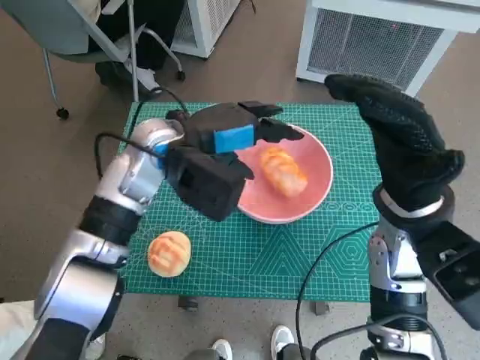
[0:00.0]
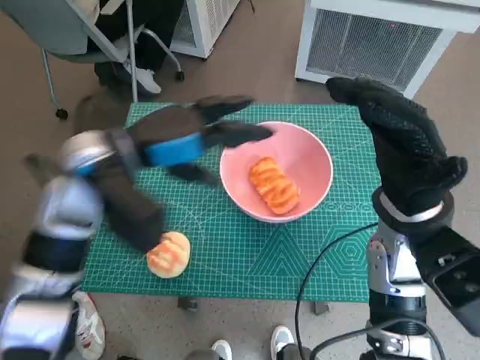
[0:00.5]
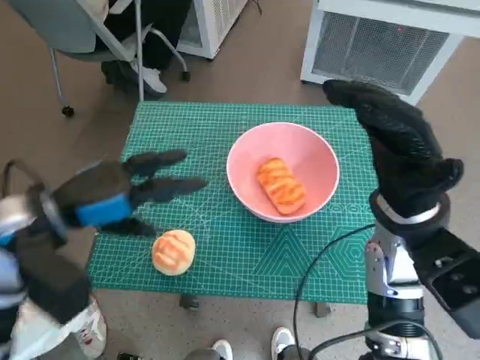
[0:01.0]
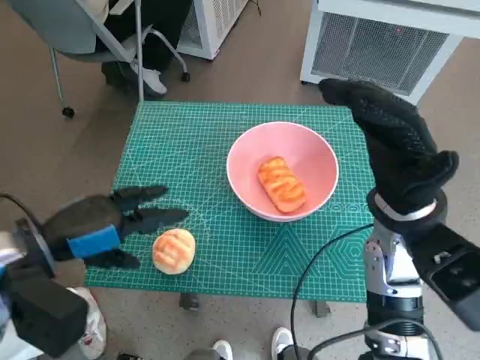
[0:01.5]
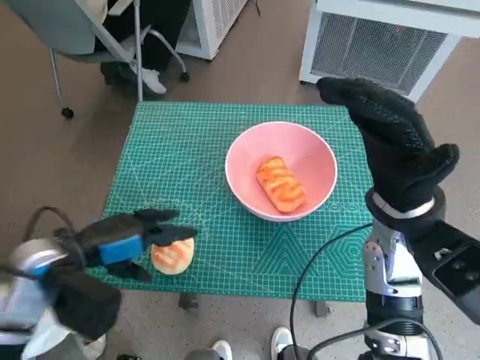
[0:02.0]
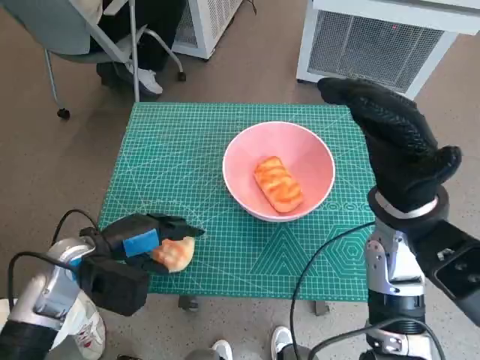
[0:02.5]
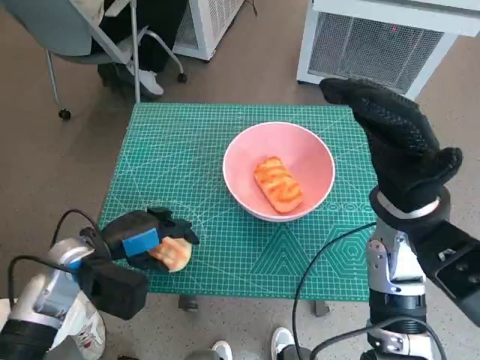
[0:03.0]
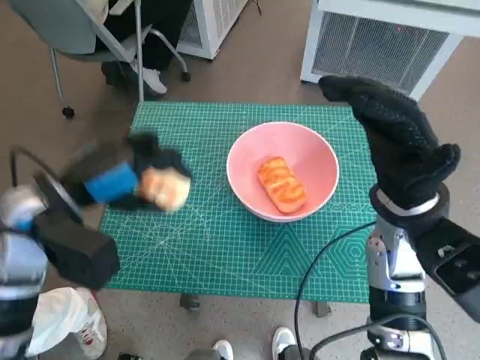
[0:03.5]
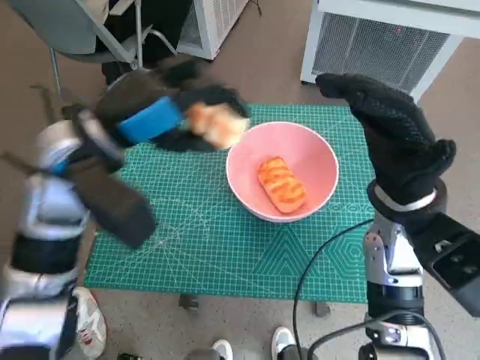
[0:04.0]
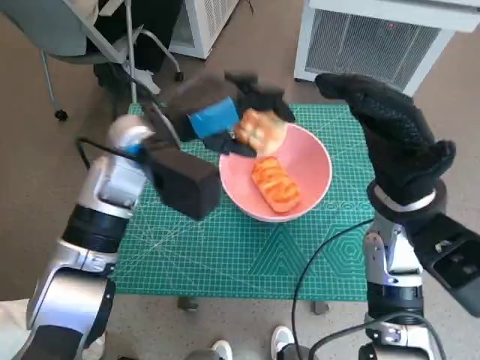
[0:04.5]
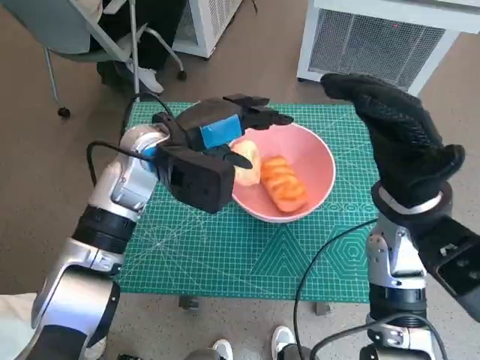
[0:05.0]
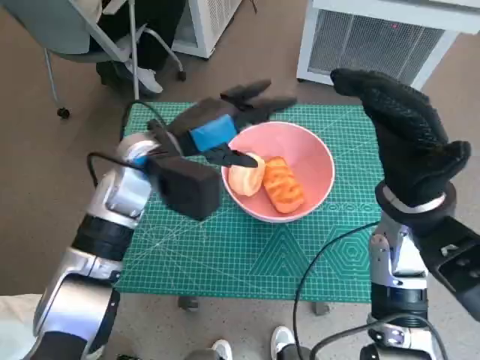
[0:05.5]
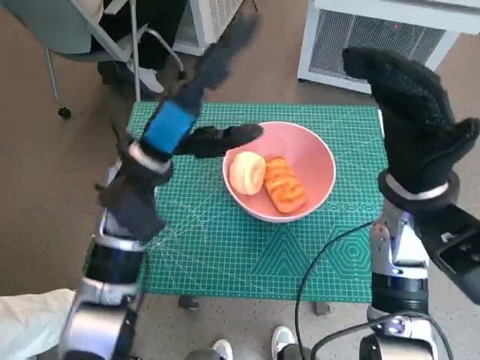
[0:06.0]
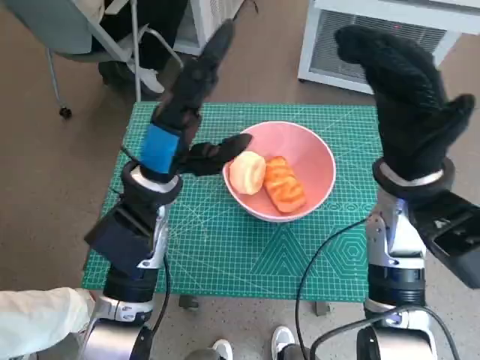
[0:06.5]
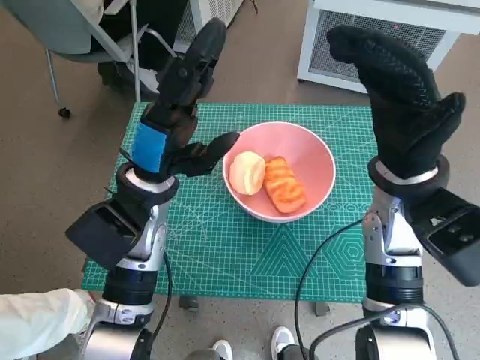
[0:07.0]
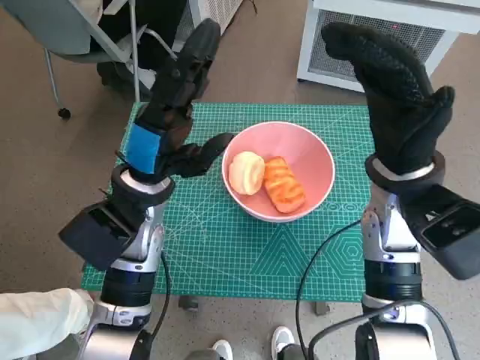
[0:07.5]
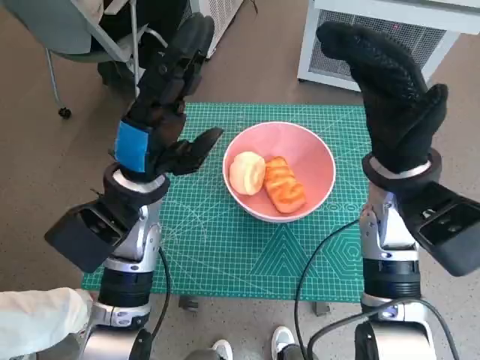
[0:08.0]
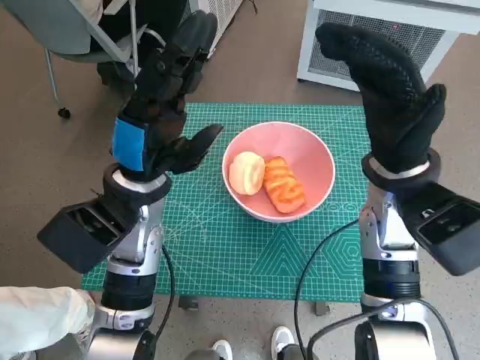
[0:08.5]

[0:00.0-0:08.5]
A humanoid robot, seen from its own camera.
Task of the whole recording: Push the bowl to the center of the table and put the bread into the bowl.
Step, 0:00.5 to 0:02.5: Grasp the round bread with left hand.
Step, 0:03.0 to 0:05.0: Place the round bread in pink bowl with left hand.
0:00.0 to 0:02.0: The left hand is displaced to the left, backward and downward by about 20 cm.
0:02.0 to 0:04.0: The left hand goes some 15 cm upward, forward and to the right.
0:04.0 to 0:06.5: The left hand is displaced downward and to the right by some 10 cm.

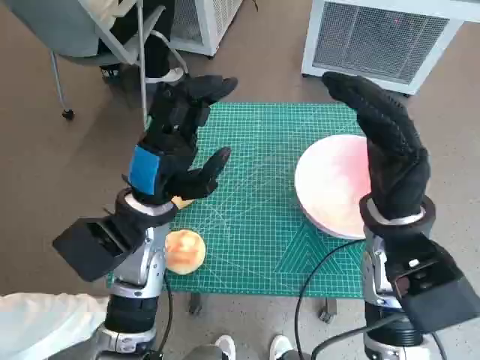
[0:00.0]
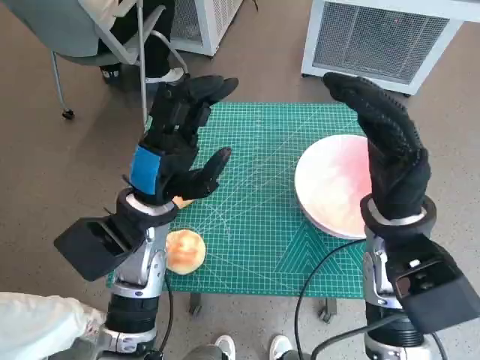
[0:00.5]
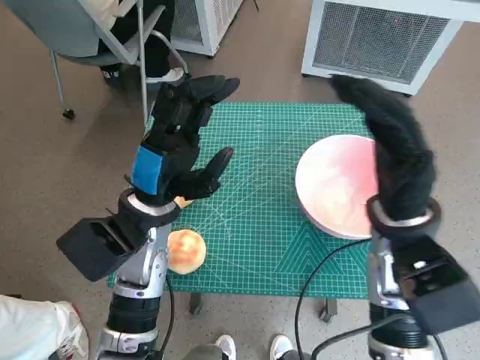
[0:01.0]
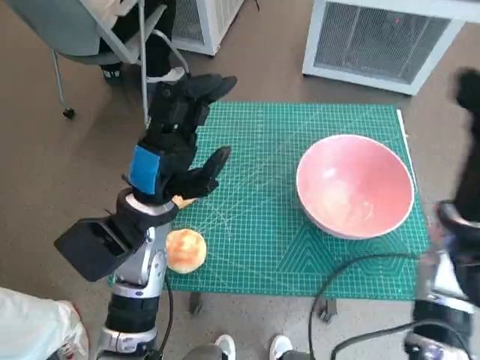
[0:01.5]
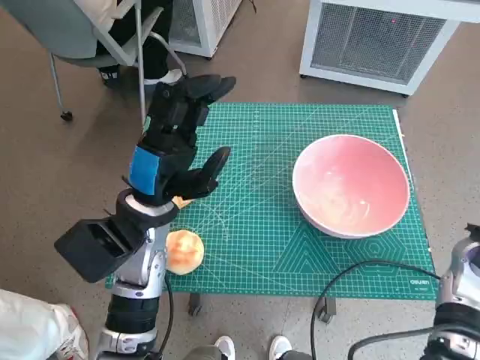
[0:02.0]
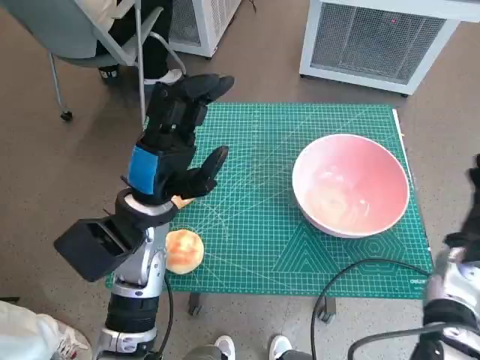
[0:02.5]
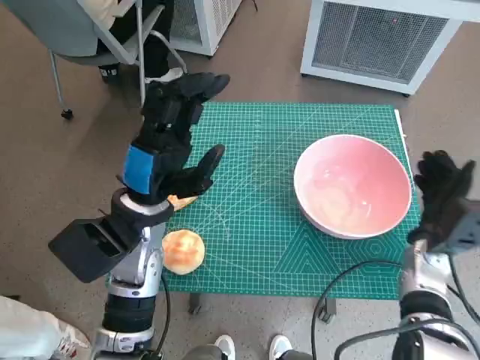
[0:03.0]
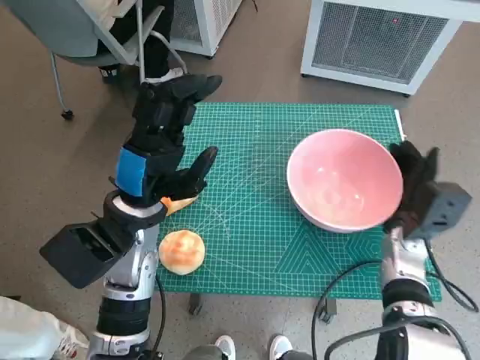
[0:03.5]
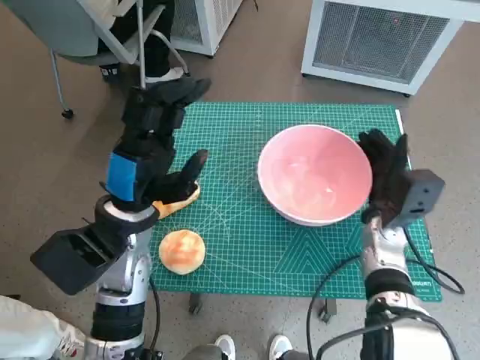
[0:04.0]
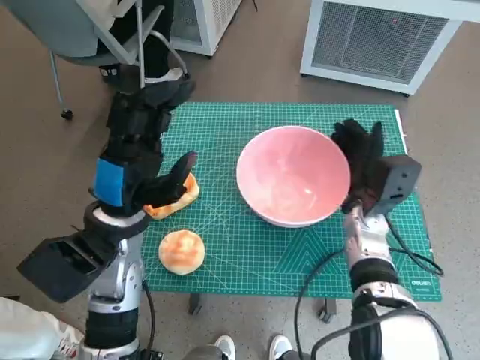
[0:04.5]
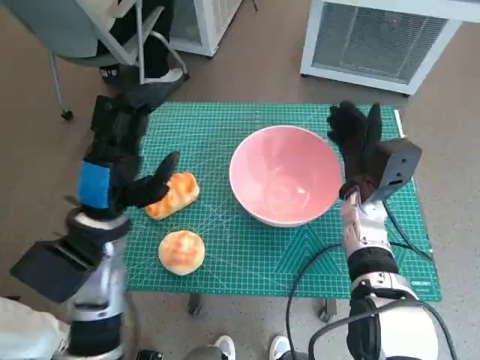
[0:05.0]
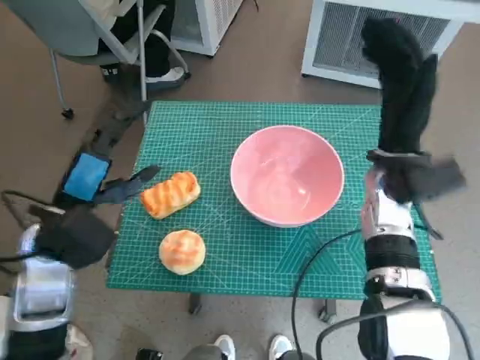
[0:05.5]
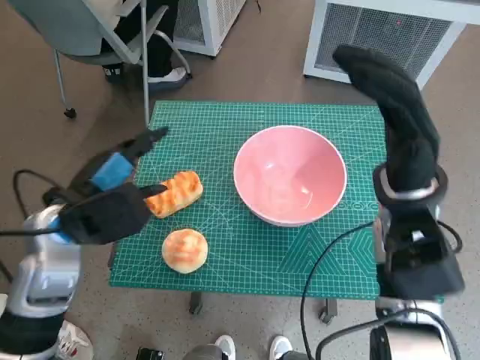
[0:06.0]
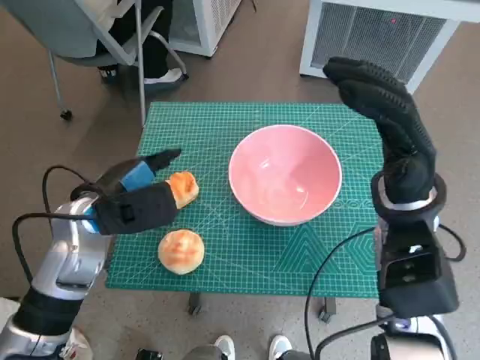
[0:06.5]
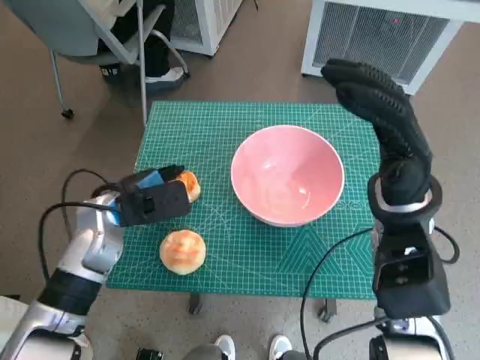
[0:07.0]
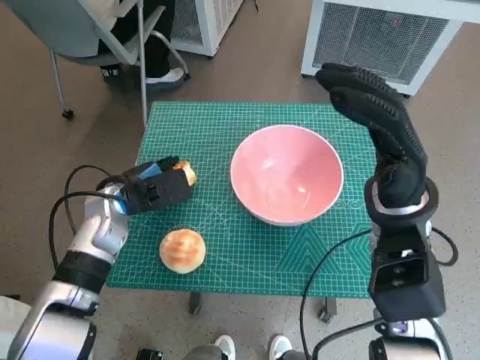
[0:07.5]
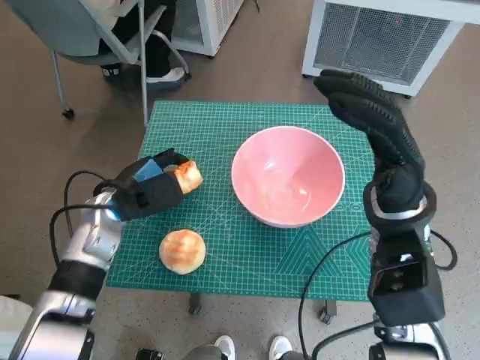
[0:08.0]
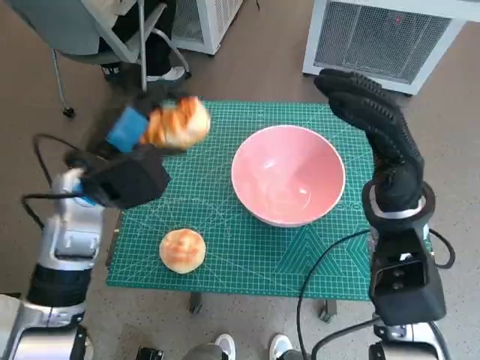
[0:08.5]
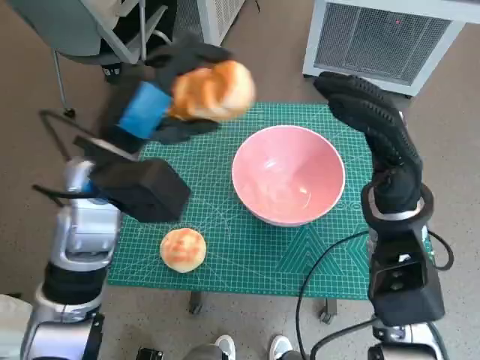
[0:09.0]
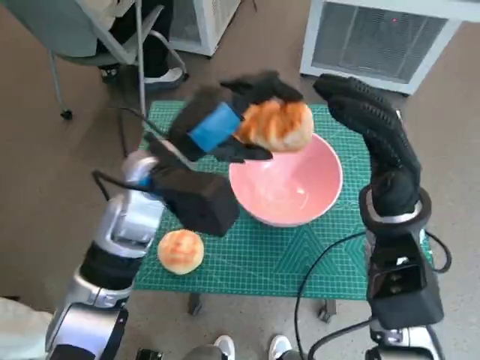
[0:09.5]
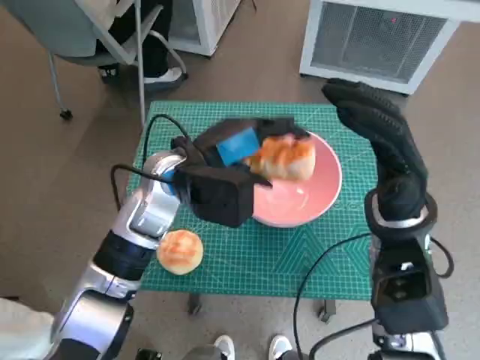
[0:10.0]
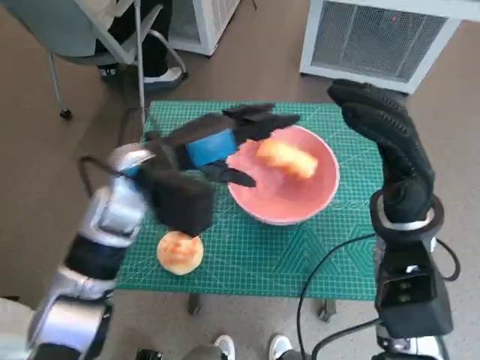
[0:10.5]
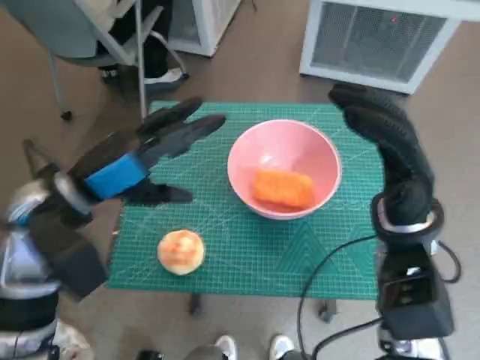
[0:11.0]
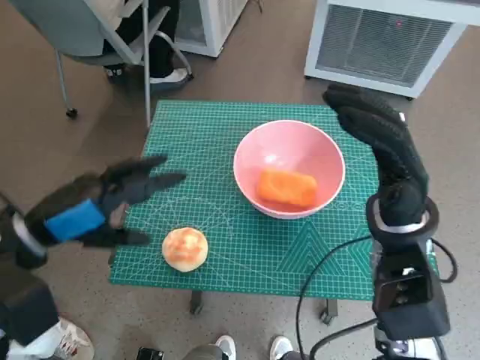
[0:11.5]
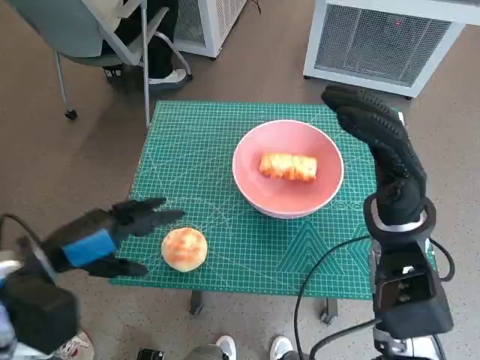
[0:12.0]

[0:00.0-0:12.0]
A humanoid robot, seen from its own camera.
Task of the whole recording: Push the bowl to the center of the table and put the bread into the bowl.
Step, 0:00.0 to 0:05.0: Move the pink bowl to the center of table with right hand.
Step, 0:05.5 to 0:07.5: Grasp the long bread with left hand.
Step, 0:08.0 to 0:10.5: Place the long bread in pink bowl with left hand.
0:02.0 to 0:04.0: The right hand goes approximately 10 cm to the left and downward.
0:04.0 to 0:06.0: The right hand moves upward, approximately 15 cm, while the left hand is displaced to the left by some 5 cm.
0:06.0 to 0:08.0: The left hand goes about 10 cm downward and forward.
0:08.0 to 0:10.0: The left hand shifts roughly 15 cm to the right and upward.
0:10.0 to 0:12.0: The left hand goes approximately 20 cm to the left and backward.

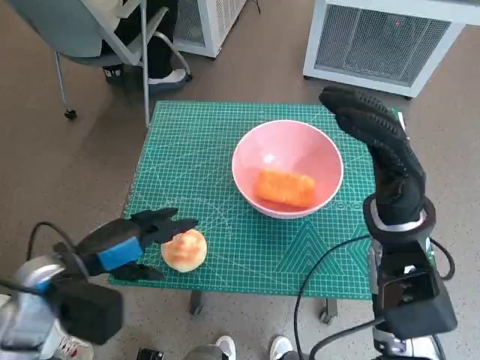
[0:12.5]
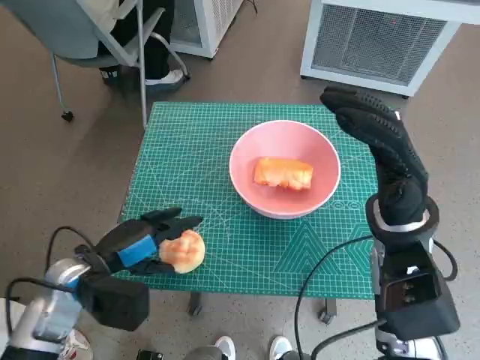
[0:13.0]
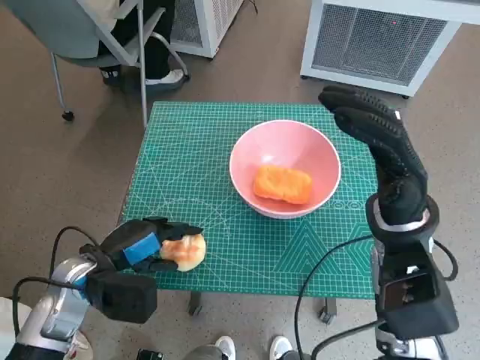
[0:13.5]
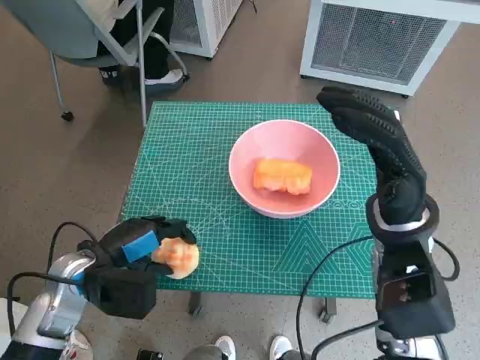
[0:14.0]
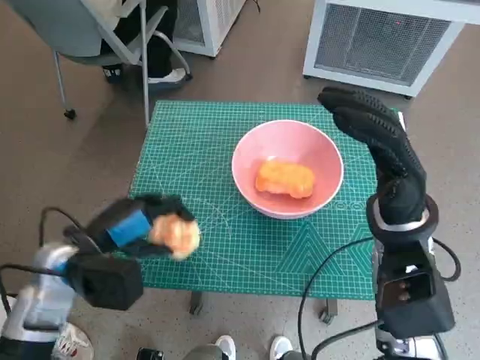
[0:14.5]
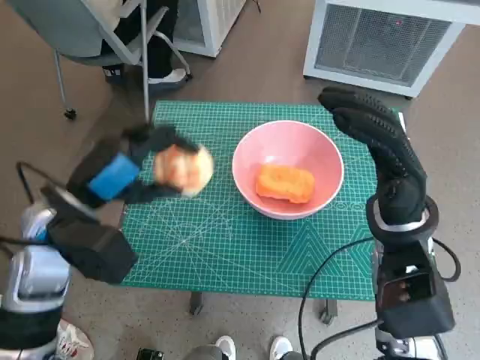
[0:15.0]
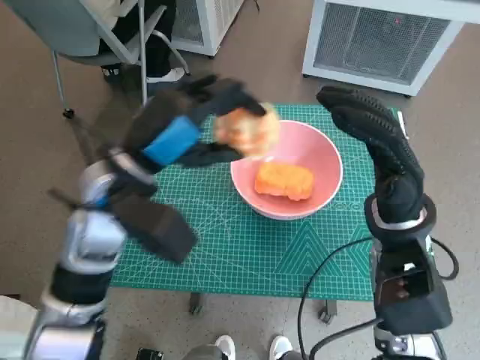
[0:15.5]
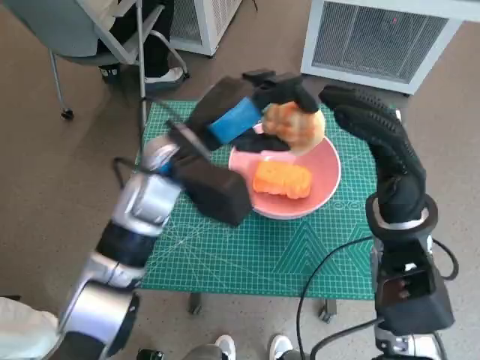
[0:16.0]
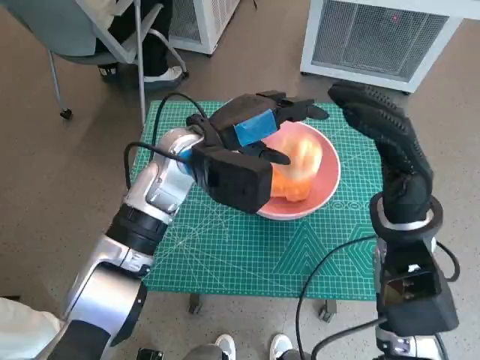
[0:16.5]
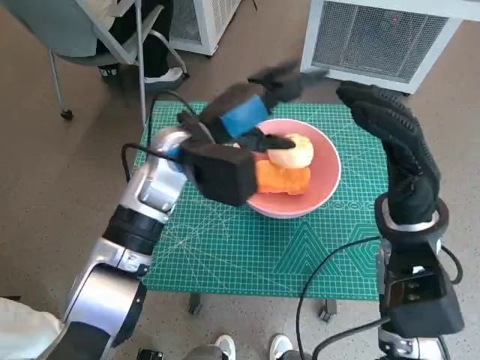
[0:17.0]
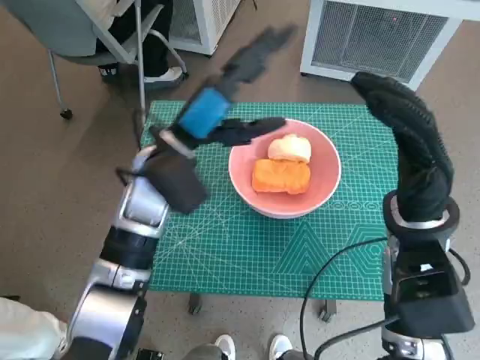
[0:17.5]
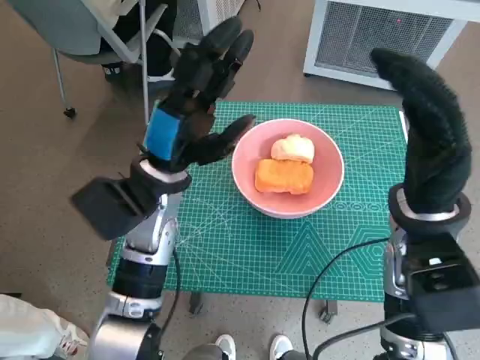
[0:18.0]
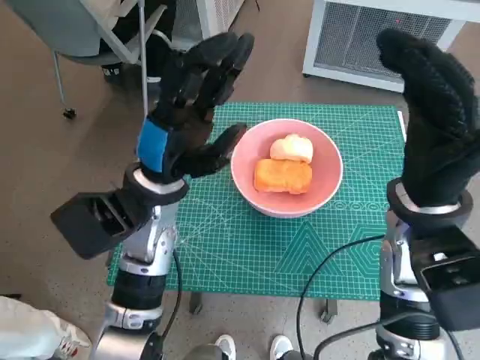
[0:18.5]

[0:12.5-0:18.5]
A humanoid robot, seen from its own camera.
Task of the whole recording: Push the bowl to the center of the table and put the bread into the bowl.
Step, 0:14.0 to 0:17.0: Place the round bread in pink bowl with left hand.
0:12.5 to 0:14.5: The hands make only small movements.
0:14.5 to 0:16.5: The left hand shifts approximately 20 cm to the right, forward and upward.
0:16.5 to 0:18.5: The left hand goes about 5 cm backward.
